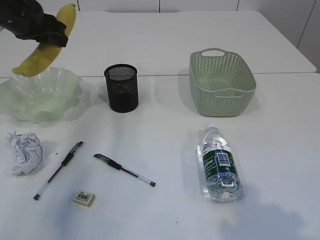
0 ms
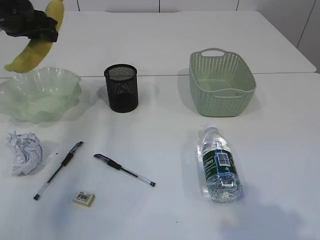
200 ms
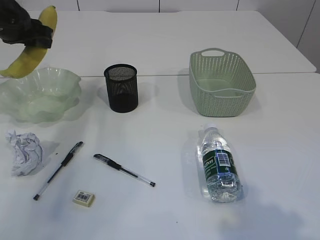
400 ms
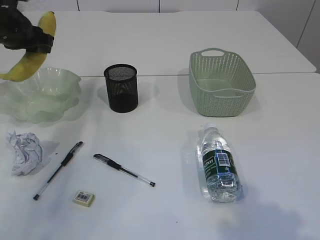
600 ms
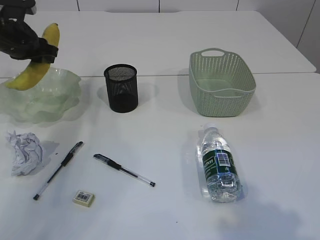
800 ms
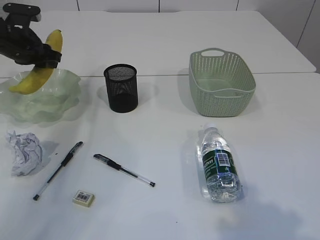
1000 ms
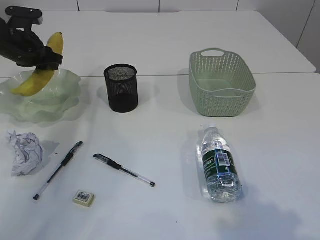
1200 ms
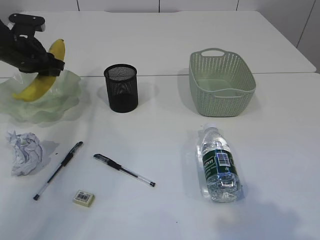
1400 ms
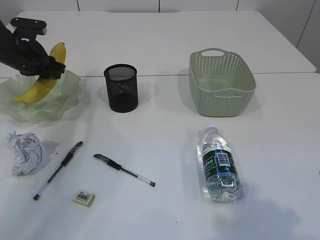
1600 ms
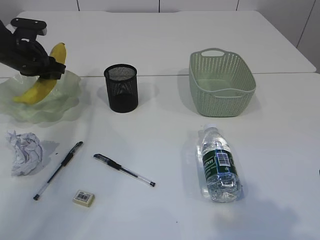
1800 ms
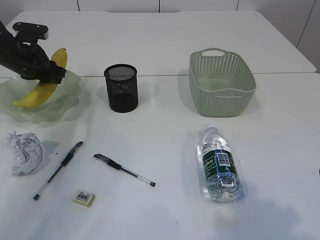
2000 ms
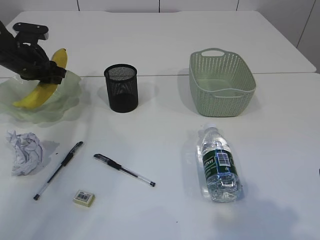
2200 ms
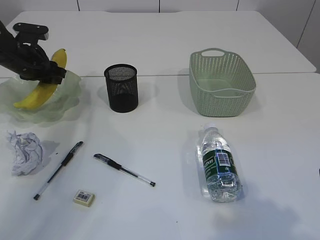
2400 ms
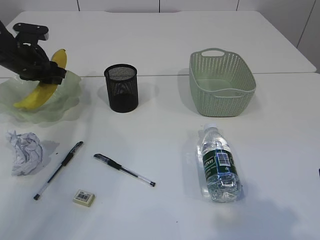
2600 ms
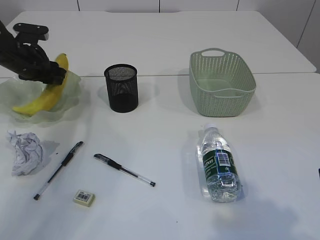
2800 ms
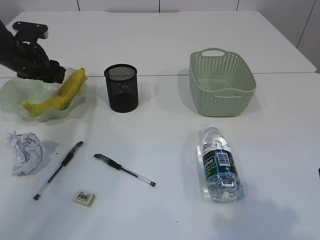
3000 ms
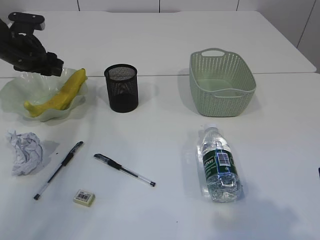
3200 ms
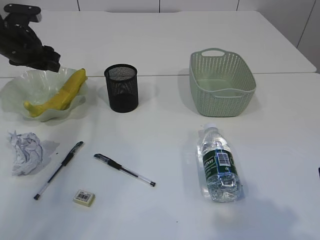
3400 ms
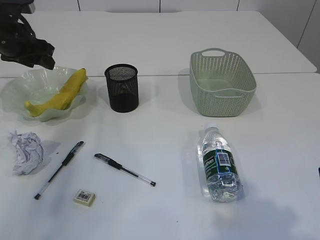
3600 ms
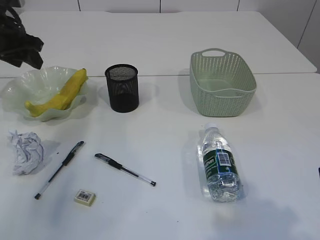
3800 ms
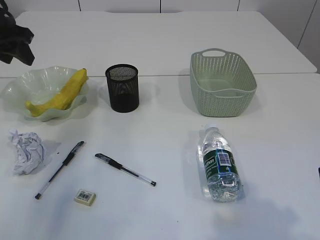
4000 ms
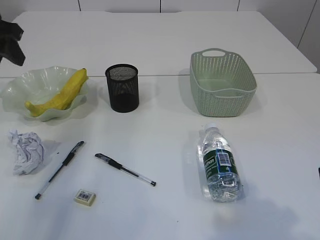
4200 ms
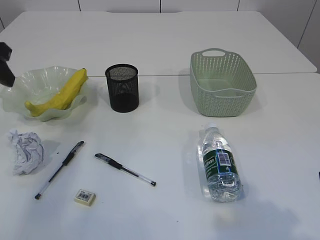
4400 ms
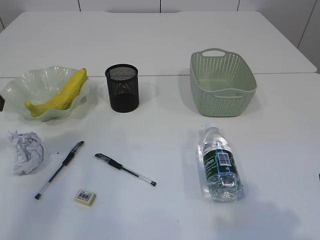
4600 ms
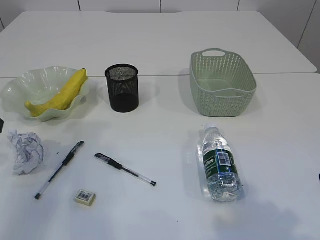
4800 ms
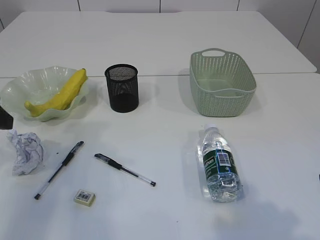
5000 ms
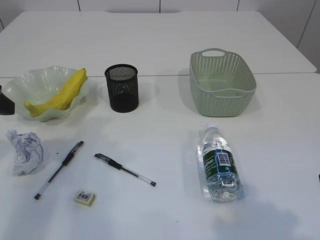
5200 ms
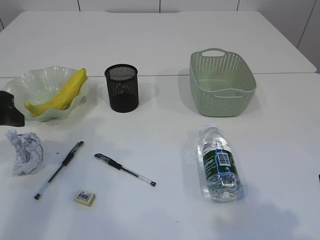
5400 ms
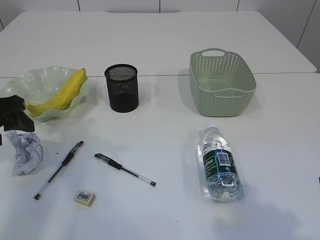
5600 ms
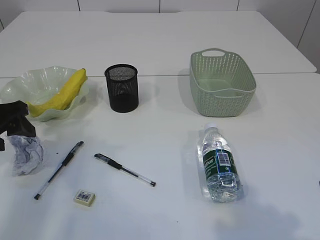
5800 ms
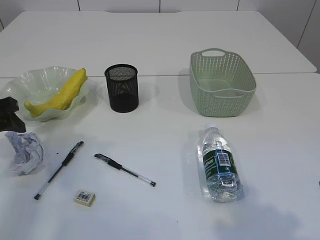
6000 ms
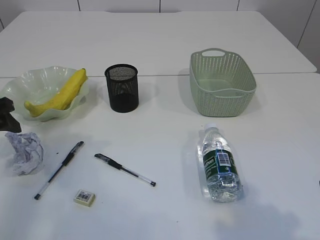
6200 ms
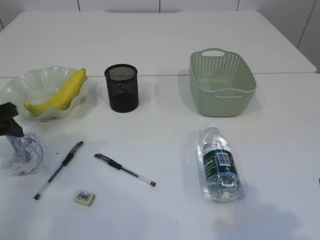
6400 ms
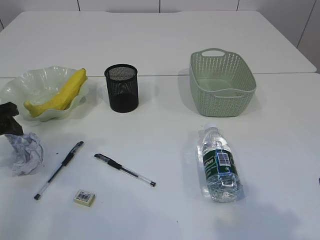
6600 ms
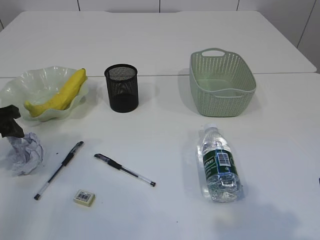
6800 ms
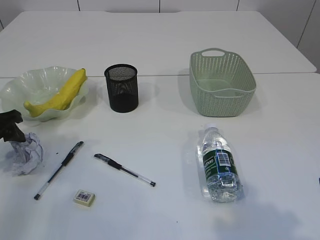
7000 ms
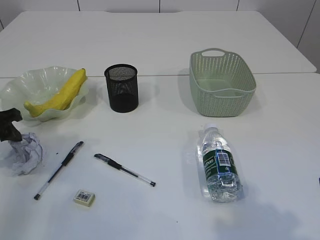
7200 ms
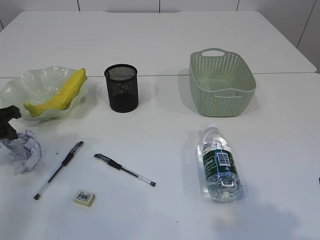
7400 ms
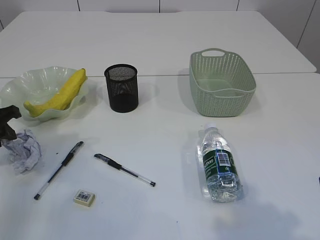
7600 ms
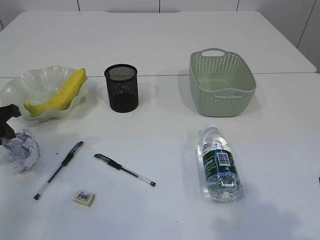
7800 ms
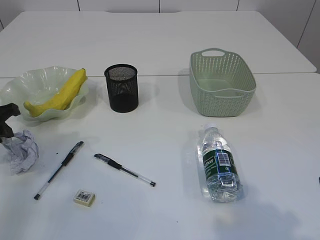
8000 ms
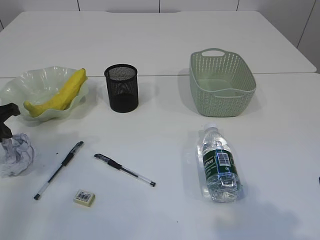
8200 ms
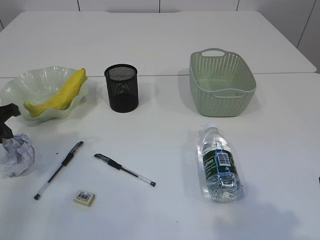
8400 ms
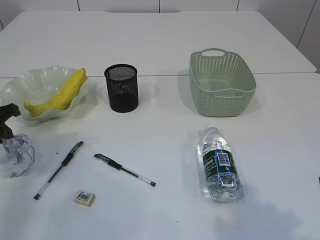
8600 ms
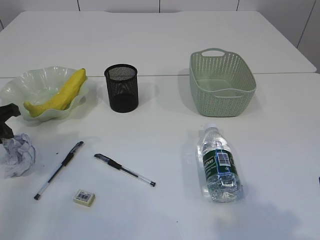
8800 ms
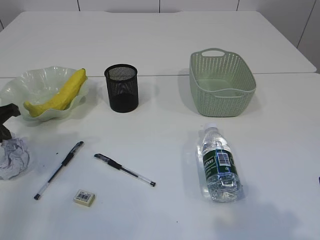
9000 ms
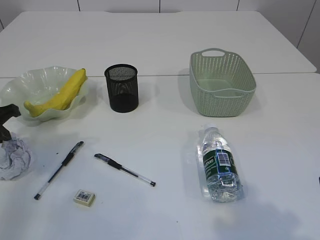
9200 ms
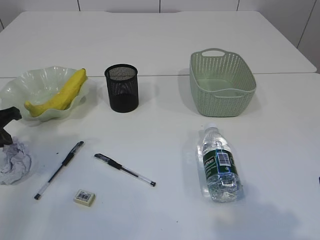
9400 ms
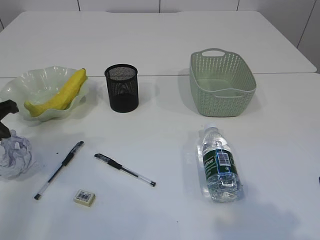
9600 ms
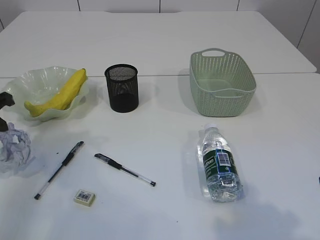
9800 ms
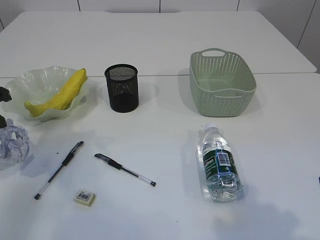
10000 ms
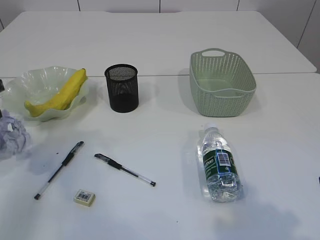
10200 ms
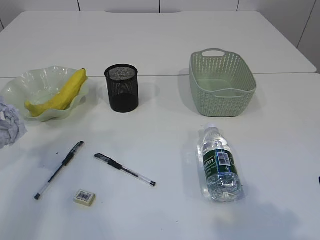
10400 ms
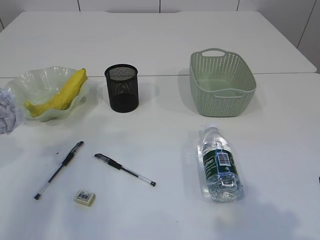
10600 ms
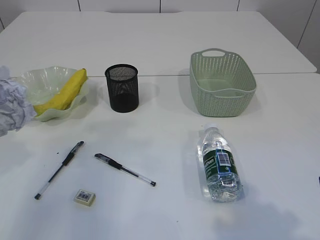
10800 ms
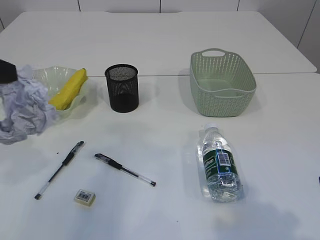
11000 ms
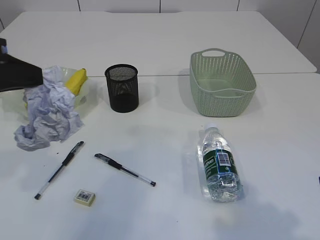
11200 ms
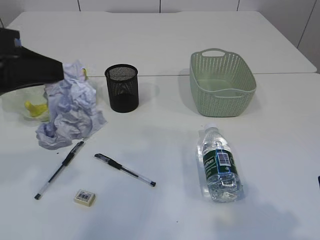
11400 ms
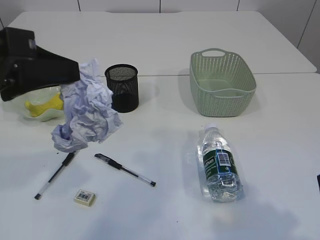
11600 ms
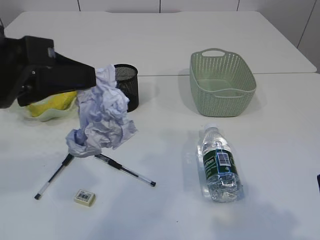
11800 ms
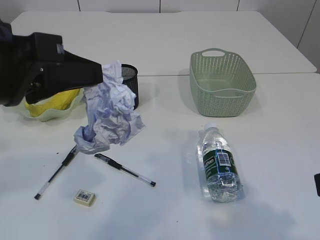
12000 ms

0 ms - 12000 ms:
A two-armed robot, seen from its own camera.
Step, 0 ms - 3600 ms: Place the banana in the plate.
Step, 3800 ms - 10200 ms: Pick up the waste paper.
0 ms - 1600 ms: The left gripper moves downward and forward, roughly 15 cm.
1600 ms - 3000 ms: Both grippers stay put.
3000 ms - 4400 ms: The left gripper heads backward and upward, covering about 20 cm.
4400 ms - 6000 ms: The left gripper goes some 10 cm downward.
6000 ms - 7600 ms: The left gripper moves about 5 cm, and closes its fingers.
7600 ms - 9000 ms: The left gripper closes.
9000 ms - 10400 ms: The left gripper heads upward, covering approximately 10 cm.
10400 ms - 12000 ms: The left gripper is displaced to the right, backward and upward by some 20 cm.

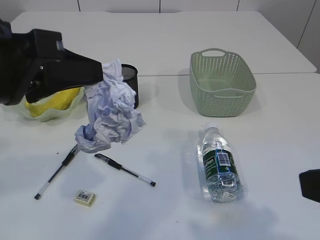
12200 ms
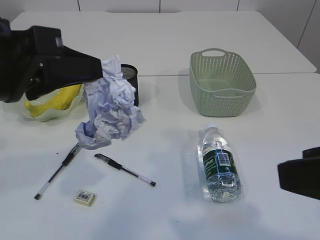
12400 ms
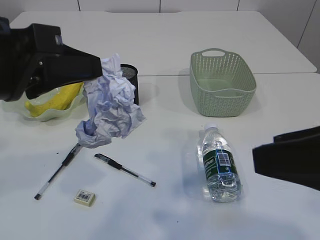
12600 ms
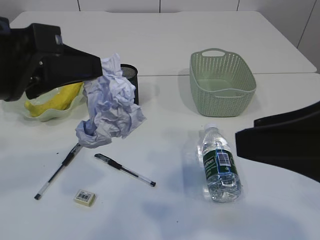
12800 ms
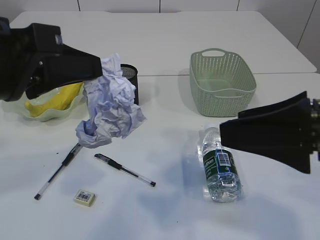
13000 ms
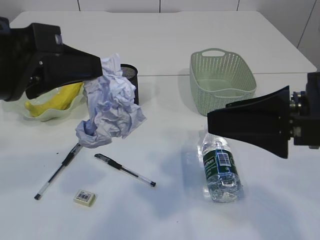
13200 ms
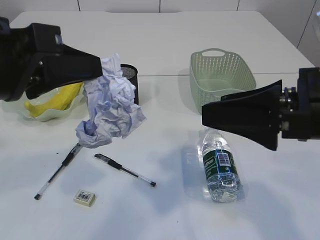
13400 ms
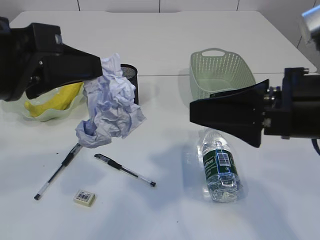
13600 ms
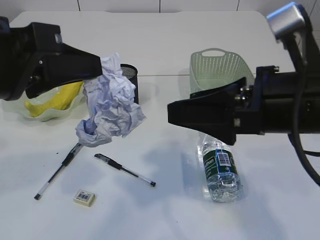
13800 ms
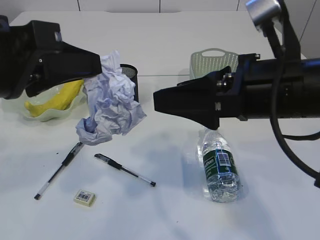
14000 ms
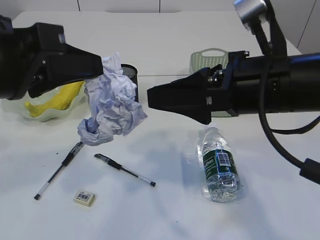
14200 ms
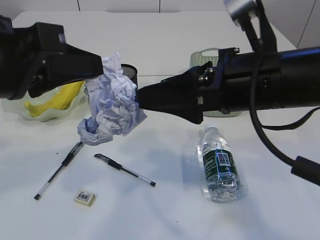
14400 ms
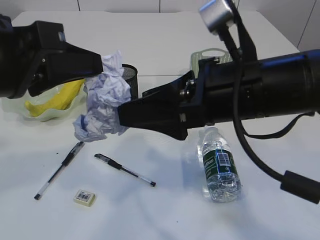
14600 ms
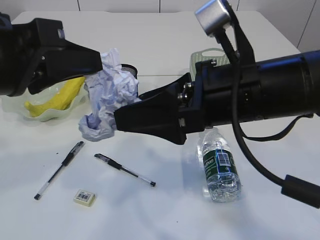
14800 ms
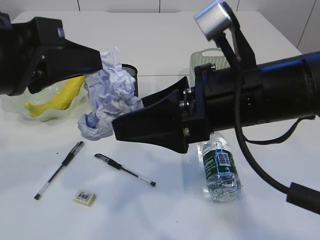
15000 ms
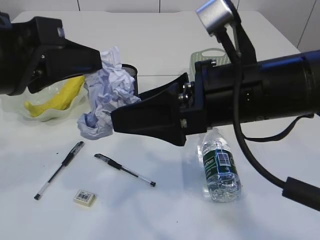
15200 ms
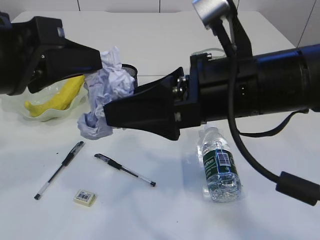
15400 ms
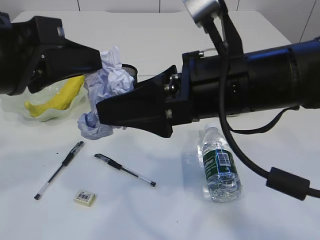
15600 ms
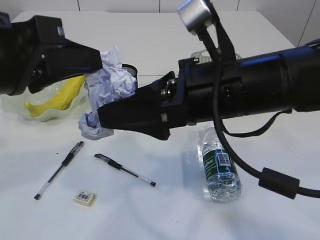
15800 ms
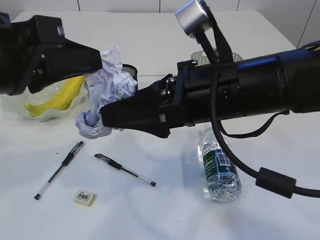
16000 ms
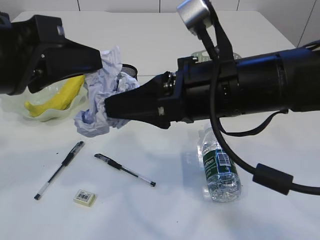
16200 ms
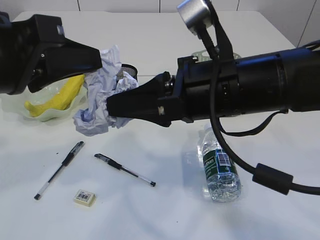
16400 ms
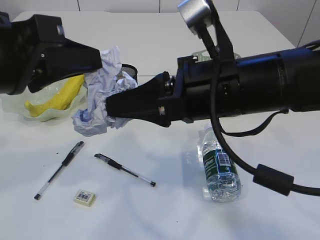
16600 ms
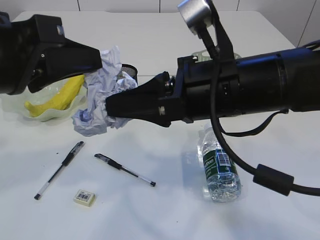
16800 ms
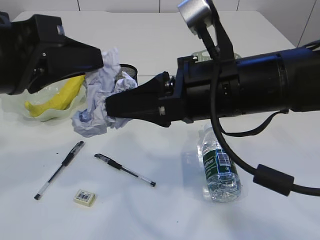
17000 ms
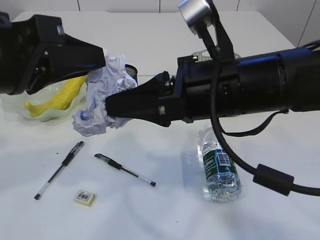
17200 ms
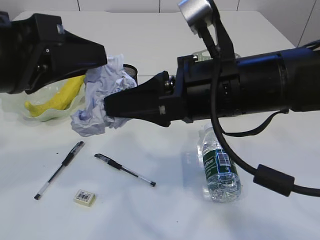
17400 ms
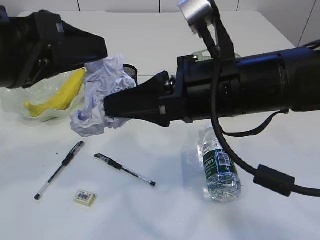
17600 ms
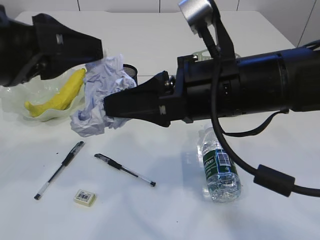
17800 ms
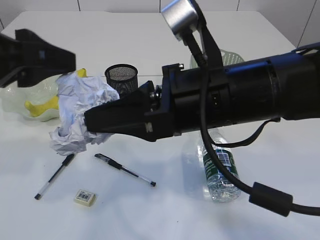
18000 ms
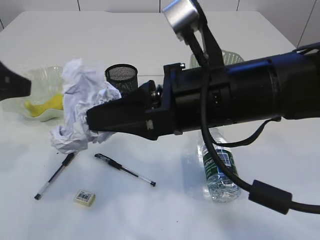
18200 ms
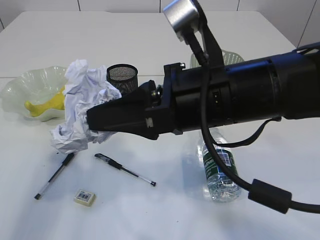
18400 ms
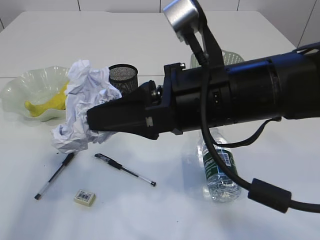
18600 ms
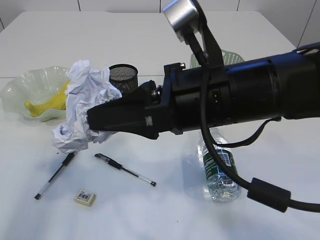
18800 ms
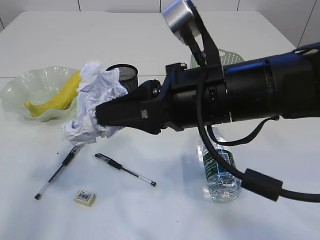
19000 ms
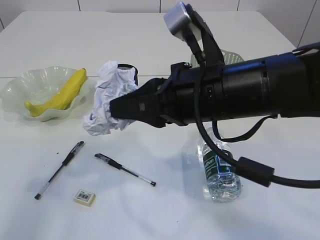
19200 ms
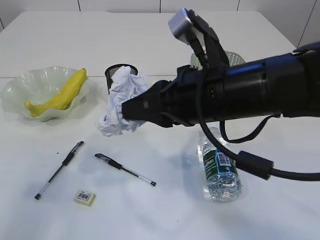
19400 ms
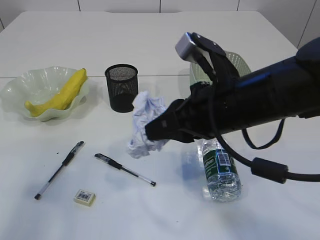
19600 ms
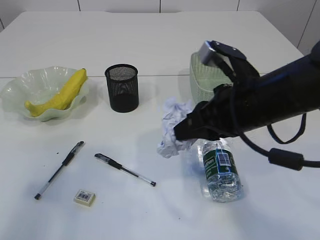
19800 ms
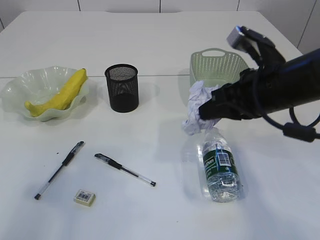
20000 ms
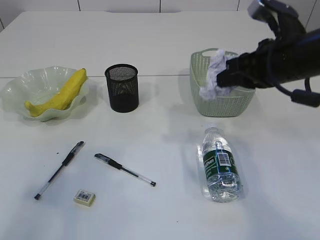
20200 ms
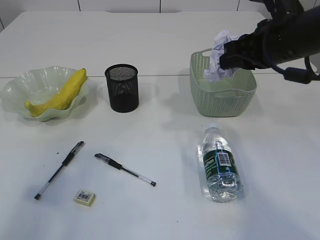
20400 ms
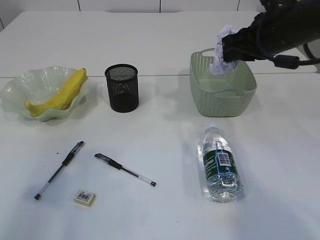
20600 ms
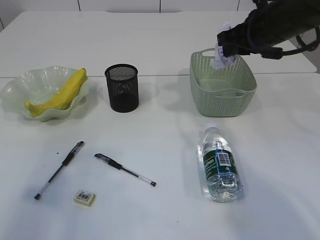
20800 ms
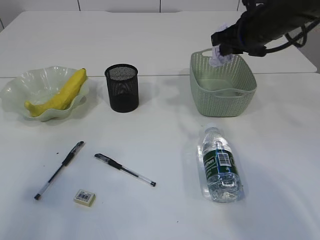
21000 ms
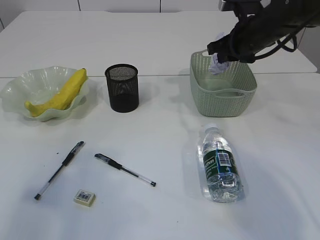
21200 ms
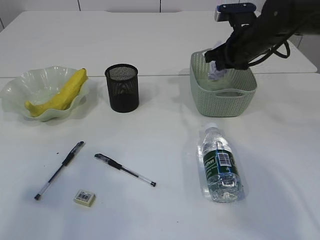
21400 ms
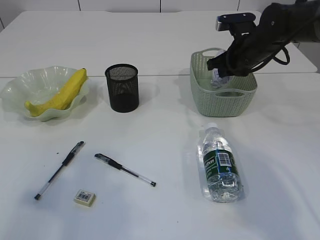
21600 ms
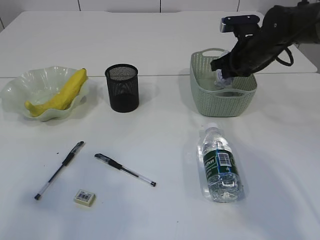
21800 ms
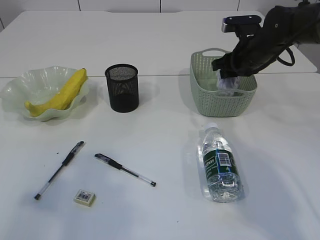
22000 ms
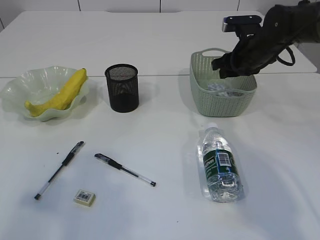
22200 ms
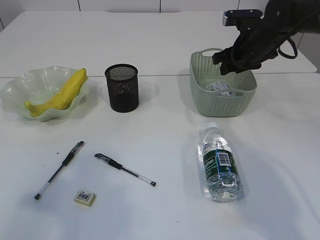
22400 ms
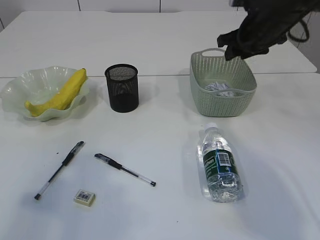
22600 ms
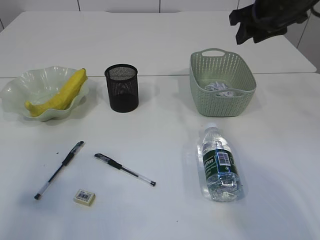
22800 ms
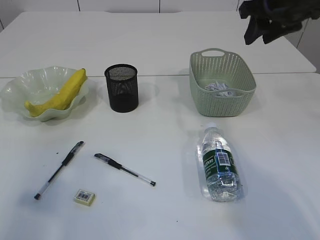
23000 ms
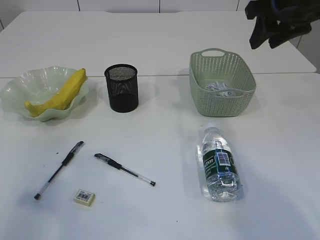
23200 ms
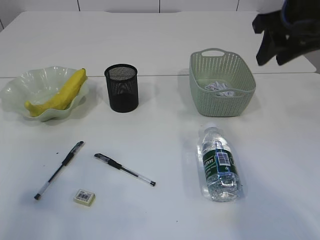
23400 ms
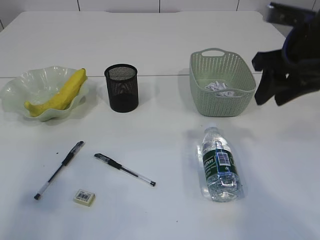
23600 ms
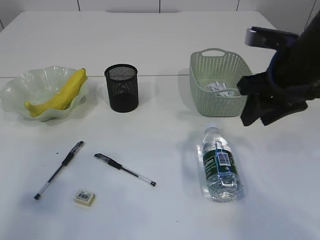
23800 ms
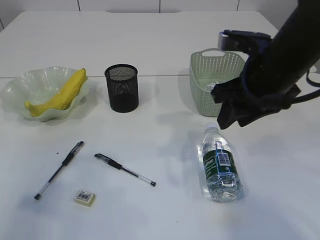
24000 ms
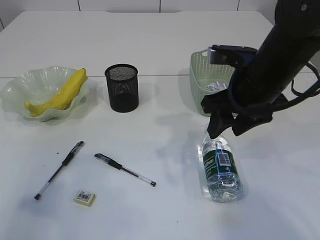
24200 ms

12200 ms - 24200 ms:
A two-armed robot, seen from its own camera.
Step, 12200 ms - 18000 ms: Hand over the waste paper.
Step, 18200 ms - 23000 ms: Place the waste paper in the basket.
12200 ms - 13800 ms: The right gripper heads forward and to the left, covering about 15 cm.
13800 ms - 15200 ms: The right gripper moves to the left, approximately 5 cm.
15200 ms - 16600 ms: The right gripper closes.
16600 ms - 18200 ms: The left gripper moves to the left, about 10 cm, and opens.
18200 ms - 19800 ms: The right gripper shifts approximately 5 cm to the right. The left gripper moves backward and to the left, some 10 cm.
19800 ms - 21200 ms: The right gripper heads forward and to the right, covering approximately 20 cm.
21200 ms - 22600 ms: The right gripper opens.
22600 ms - 24200 ms: The right gripper shifts some 15 cm backward and to the left.
